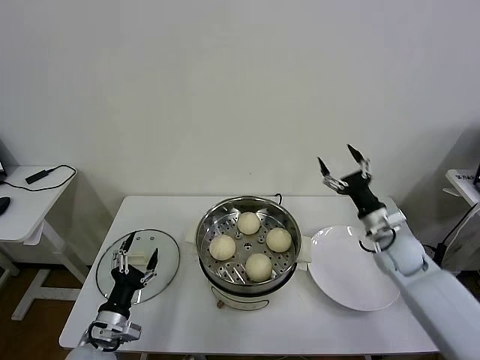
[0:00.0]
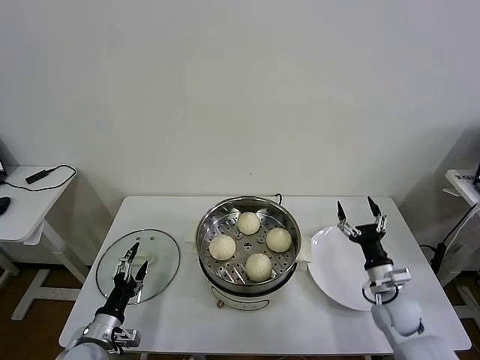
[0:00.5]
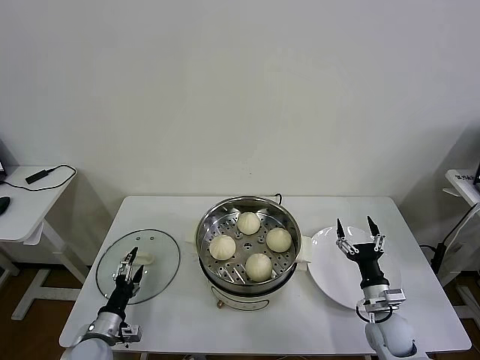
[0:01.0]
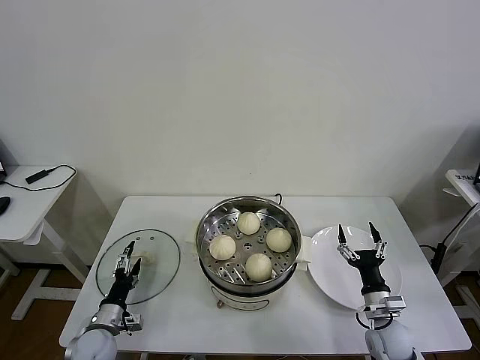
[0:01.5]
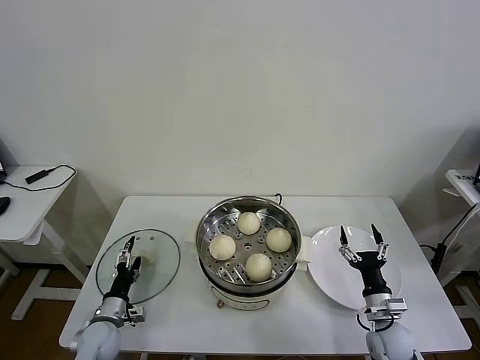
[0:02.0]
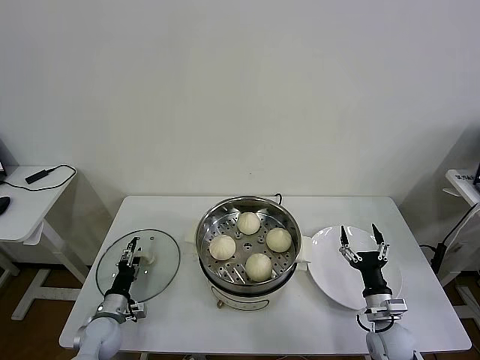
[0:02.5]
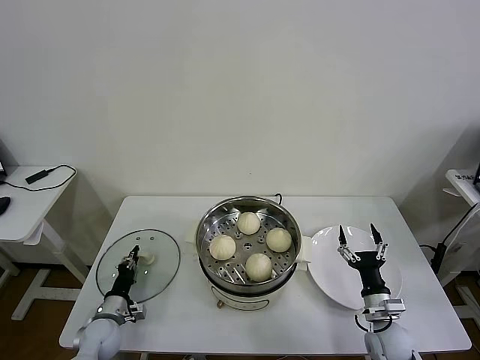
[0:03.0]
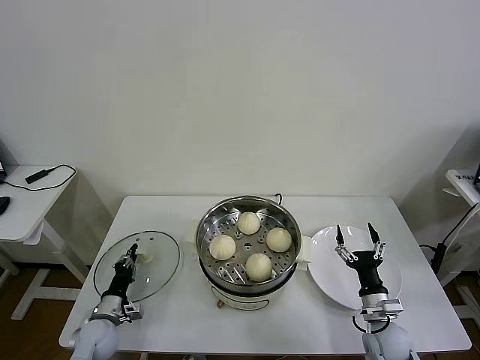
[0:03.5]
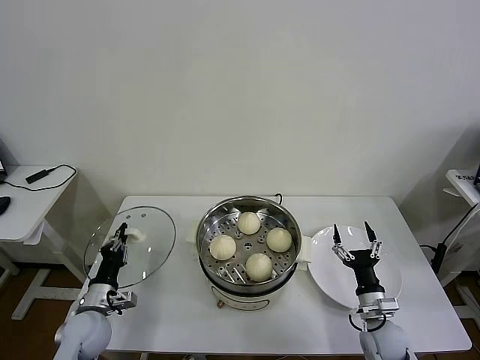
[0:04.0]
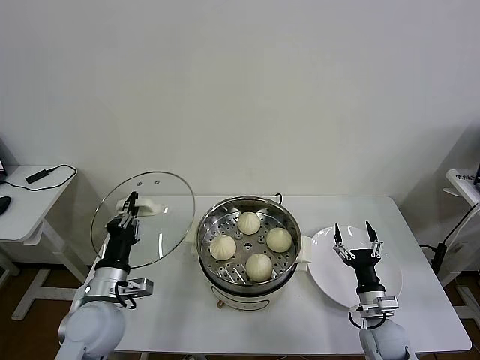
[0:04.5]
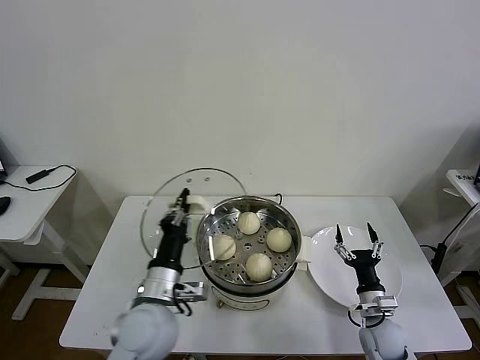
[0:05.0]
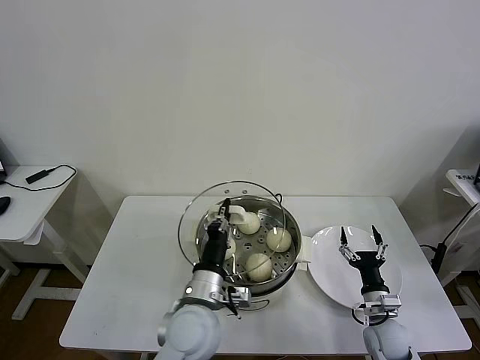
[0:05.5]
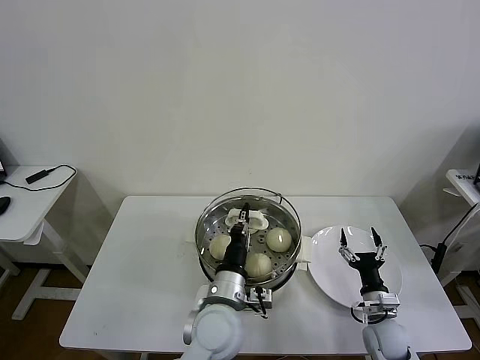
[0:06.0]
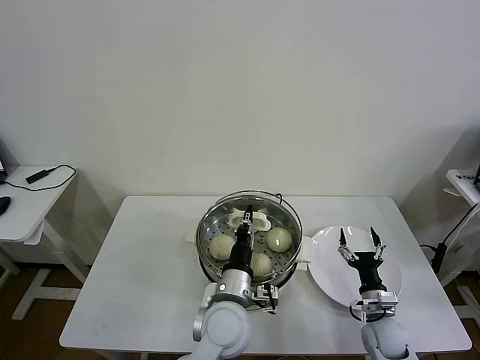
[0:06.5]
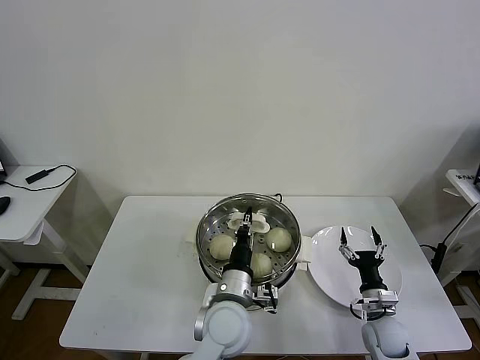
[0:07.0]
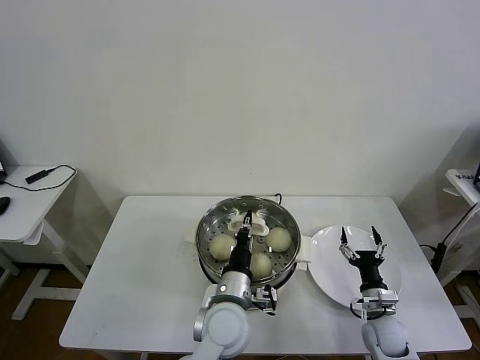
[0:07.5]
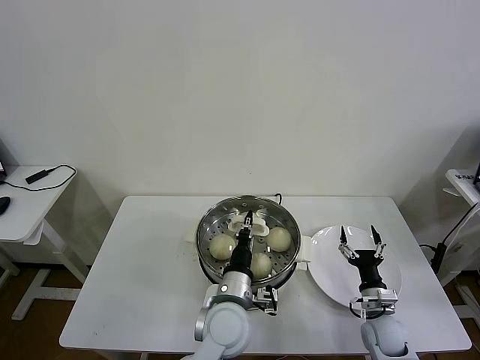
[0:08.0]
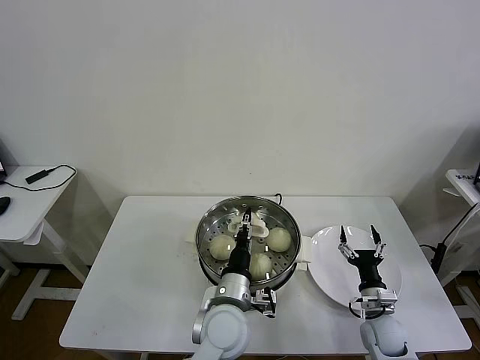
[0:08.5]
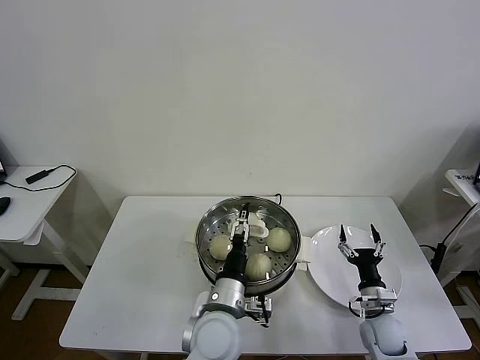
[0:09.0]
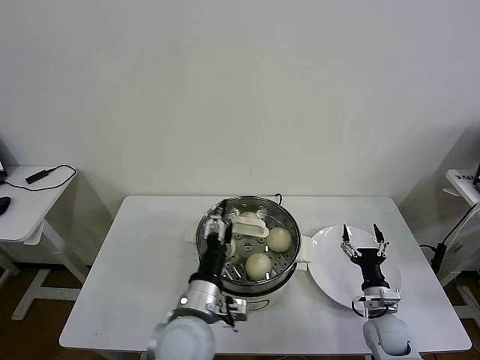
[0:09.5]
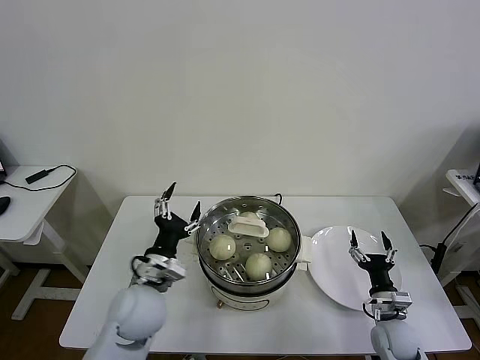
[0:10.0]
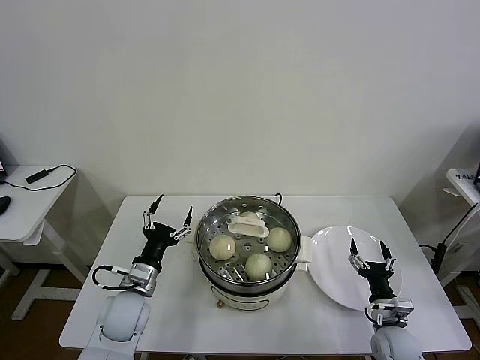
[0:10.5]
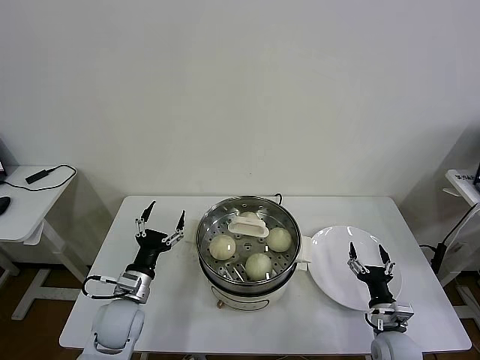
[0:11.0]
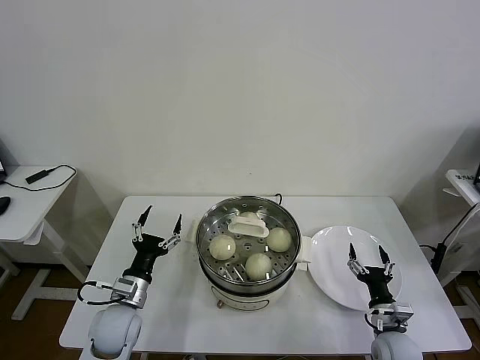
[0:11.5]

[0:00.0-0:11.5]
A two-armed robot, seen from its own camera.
Task of the whole recording: take steamed baozi put them in steamer then cover it.
Step, 0:00.0 to 0:03.0: Grasp the pot lid with left gripper.
Step, 0:03.5 to 0:08.5: Place the pot lid on the steamer with left gripper.
0:00.0 to 0:02.0: The right gripper shifts some 20 cm downward and backward. Meanwhile the left gripper shifts about 15 cm downward, forward and to the left.
0:02.0 to 0:04.0: The left gripper shifts approximately 5 cm upward, and closes up.
0:04.0 to 0:06.0: The left gripper moves to the right, approximately 30 cm.
0:06.0 to 0:07.5: The grippers stay close to where they were, moving slightly.
0:07.5 to 0:09.5: The left gripper goes some 5 cm to the left, and opens its fingers.
0:09.5 to 0:11.5: The left gripper moves to the left and downward, approximately 20 cm.
